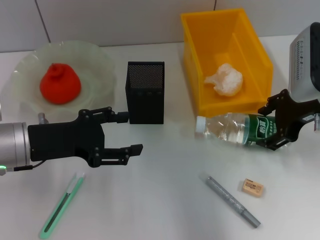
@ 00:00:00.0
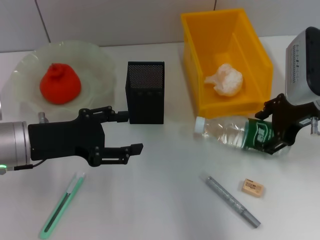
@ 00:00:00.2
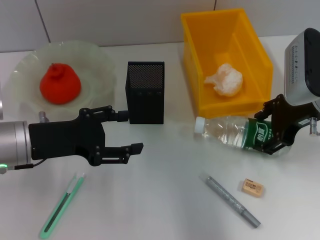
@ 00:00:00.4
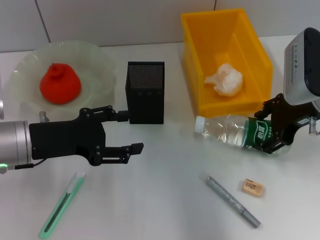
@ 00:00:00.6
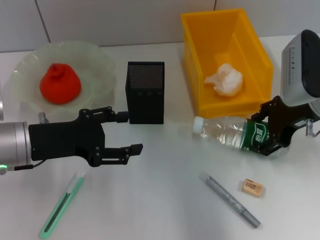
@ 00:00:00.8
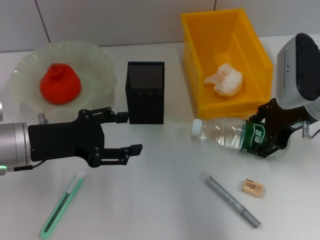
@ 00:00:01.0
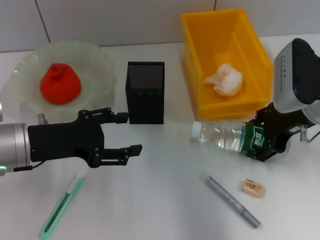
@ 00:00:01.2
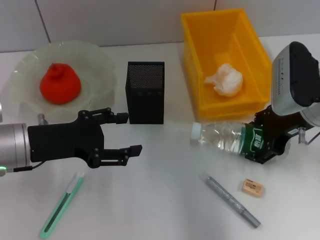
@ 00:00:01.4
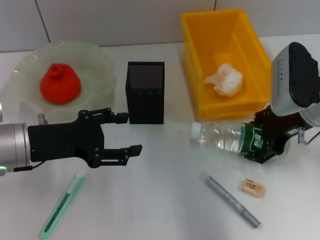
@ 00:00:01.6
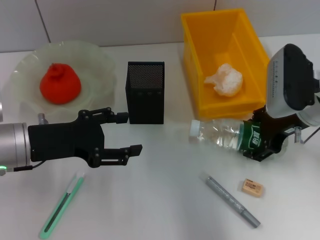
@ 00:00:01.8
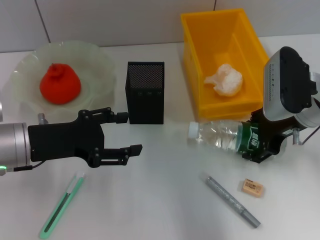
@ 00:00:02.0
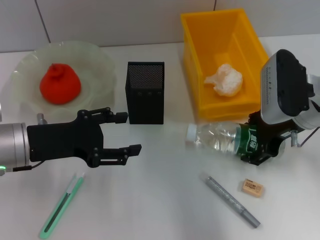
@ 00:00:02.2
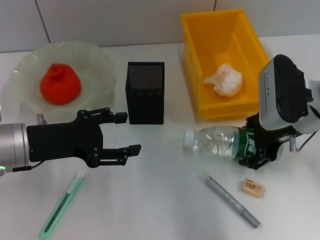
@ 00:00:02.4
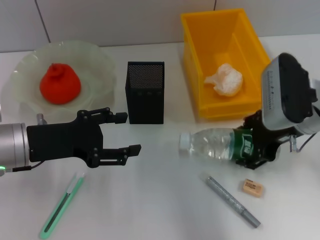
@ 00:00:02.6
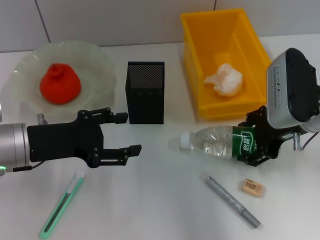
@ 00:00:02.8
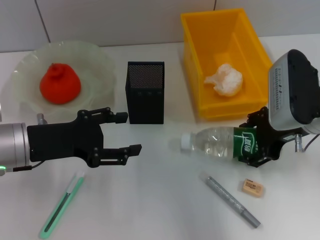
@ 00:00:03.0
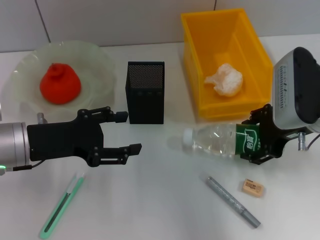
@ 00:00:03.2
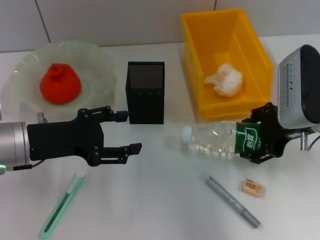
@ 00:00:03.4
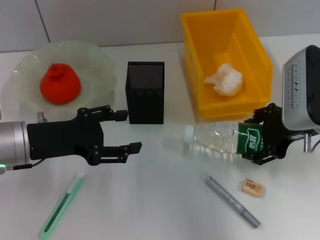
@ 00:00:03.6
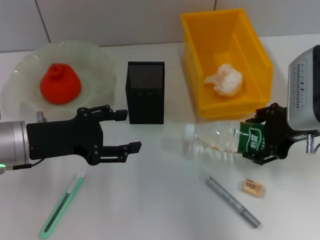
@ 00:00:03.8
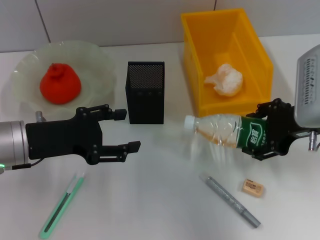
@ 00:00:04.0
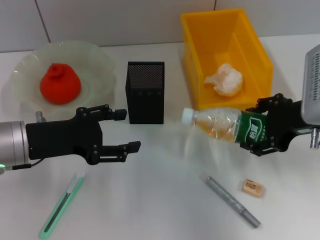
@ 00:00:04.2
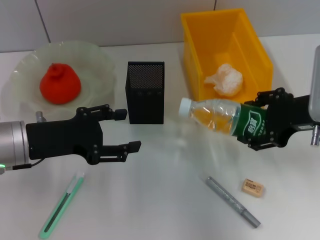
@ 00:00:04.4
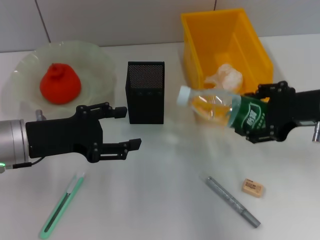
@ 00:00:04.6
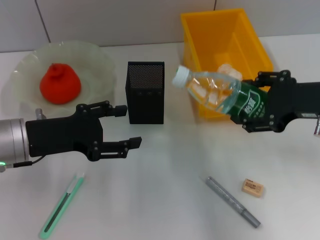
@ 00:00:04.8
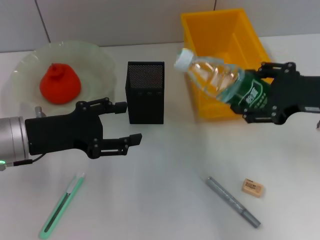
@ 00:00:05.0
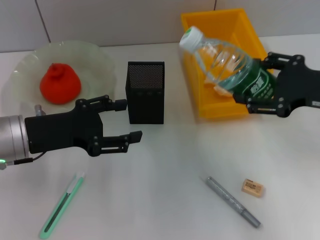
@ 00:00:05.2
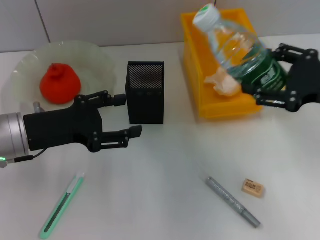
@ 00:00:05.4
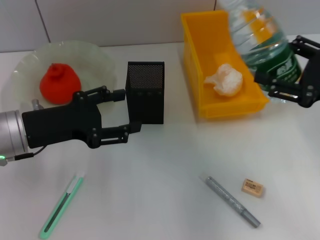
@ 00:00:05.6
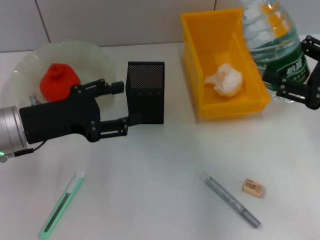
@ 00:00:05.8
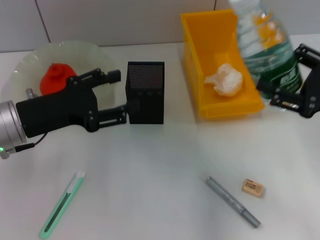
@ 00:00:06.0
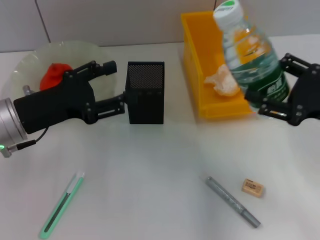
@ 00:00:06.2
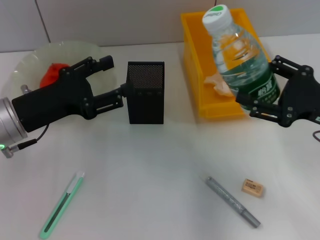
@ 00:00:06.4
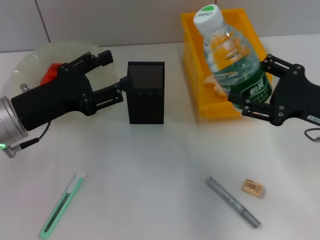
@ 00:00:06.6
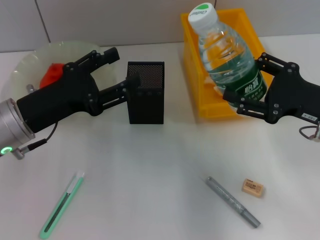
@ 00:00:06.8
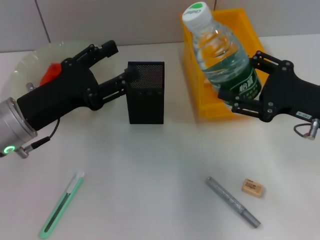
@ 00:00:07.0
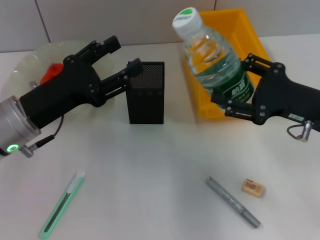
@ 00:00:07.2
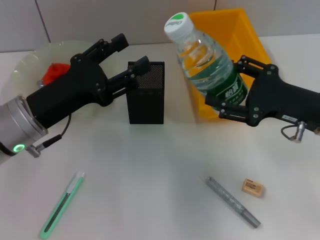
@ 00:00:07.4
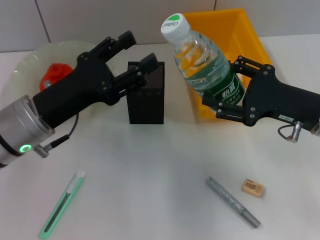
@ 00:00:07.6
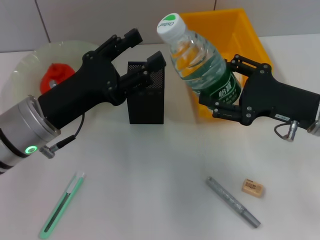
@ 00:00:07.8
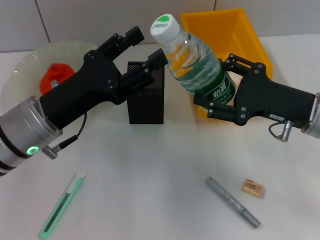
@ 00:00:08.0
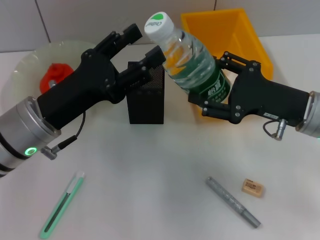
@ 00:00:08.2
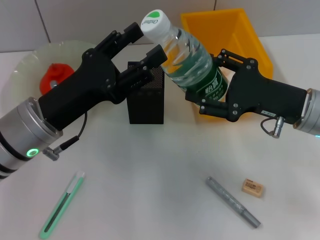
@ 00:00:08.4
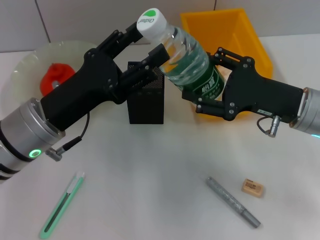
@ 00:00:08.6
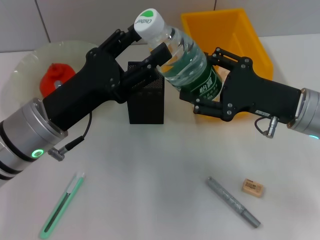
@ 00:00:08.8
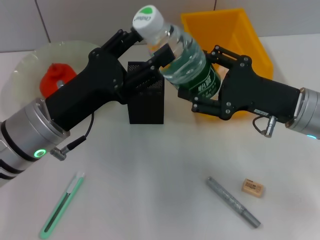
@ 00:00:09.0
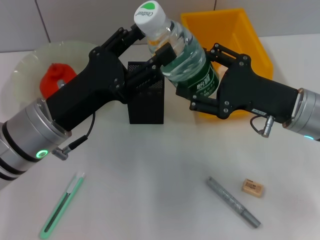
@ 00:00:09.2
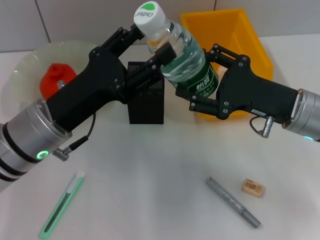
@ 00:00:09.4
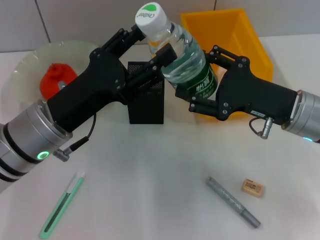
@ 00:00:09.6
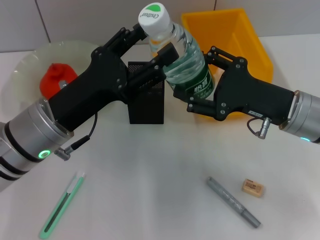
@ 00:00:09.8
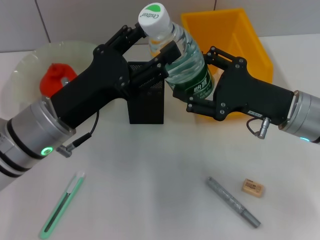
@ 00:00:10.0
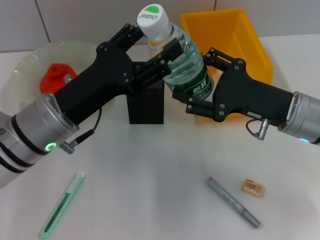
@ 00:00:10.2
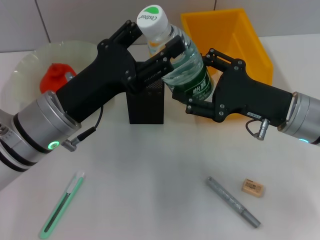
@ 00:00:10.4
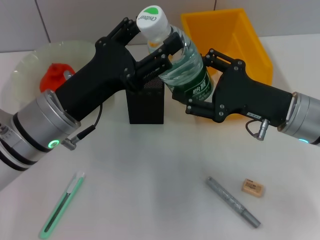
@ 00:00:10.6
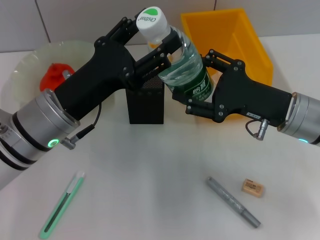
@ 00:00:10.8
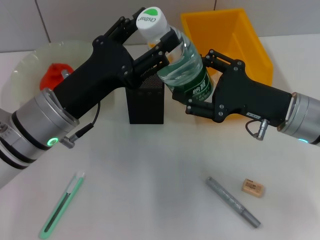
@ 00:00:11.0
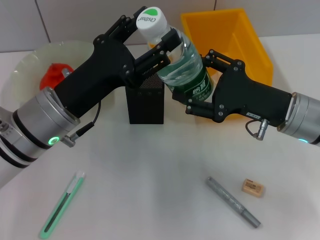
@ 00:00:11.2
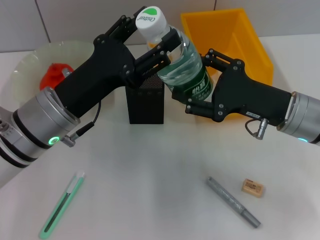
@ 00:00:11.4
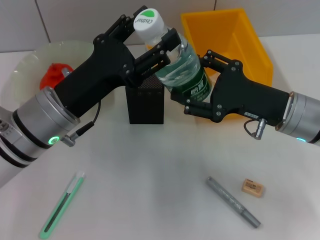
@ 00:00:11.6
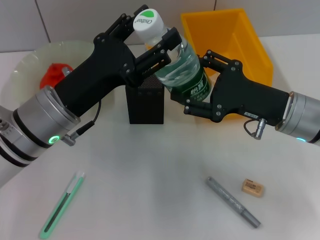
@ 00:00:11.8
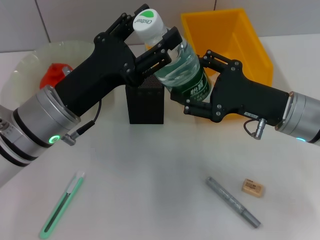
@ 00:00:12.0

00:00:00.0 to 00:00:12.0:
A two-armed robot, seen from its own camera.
00:00:00.0 to 00:00:04.4: The grippers move only a little.
00:00:04.4 to 00:00:06.0: The right gripper moves to the right, some 5 cm.
00:00:06.0 to 00:00:07.6: The right gripper travels to the left by roughly 5 cm.
00:00:07.6 to 00:00:10.4: There are only small adjustments of the grippers.
00:00:10.4 to 00:00:12.0: Neither gripper changes place.

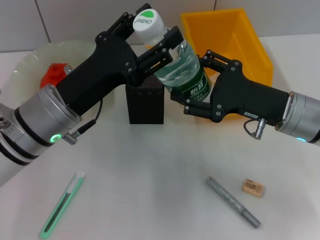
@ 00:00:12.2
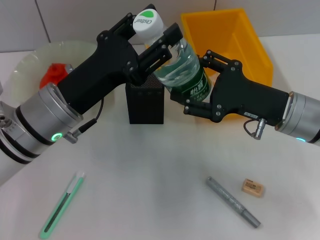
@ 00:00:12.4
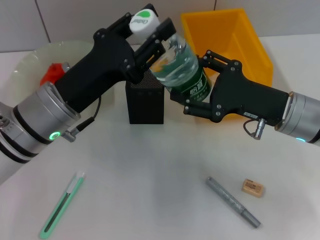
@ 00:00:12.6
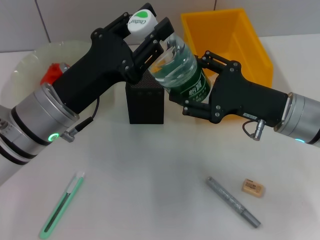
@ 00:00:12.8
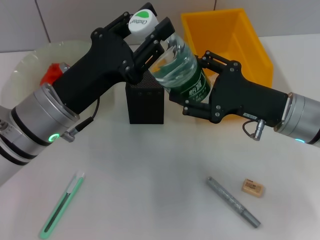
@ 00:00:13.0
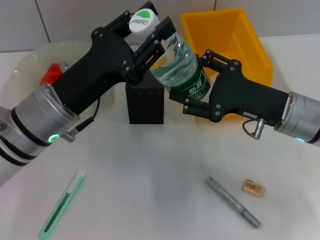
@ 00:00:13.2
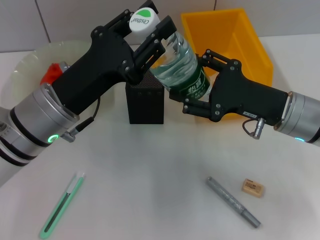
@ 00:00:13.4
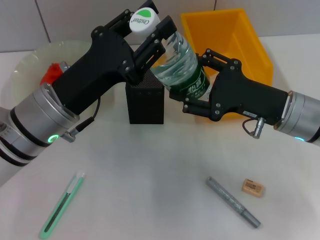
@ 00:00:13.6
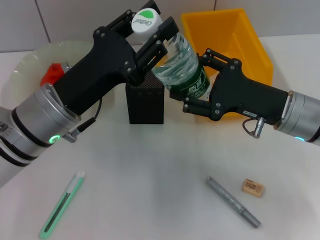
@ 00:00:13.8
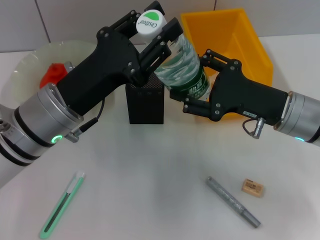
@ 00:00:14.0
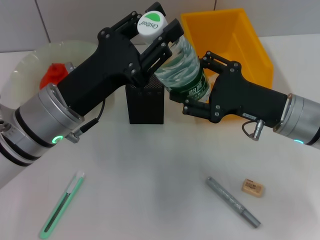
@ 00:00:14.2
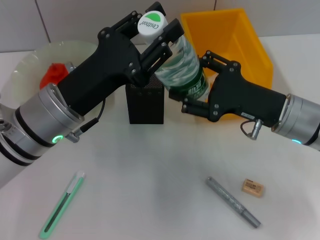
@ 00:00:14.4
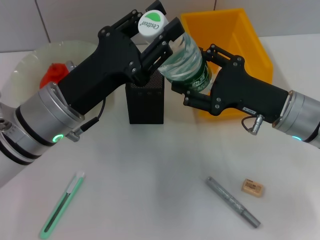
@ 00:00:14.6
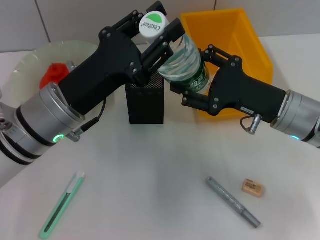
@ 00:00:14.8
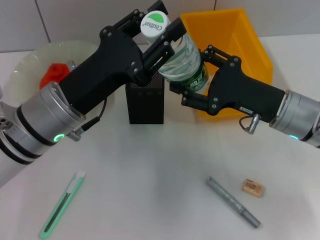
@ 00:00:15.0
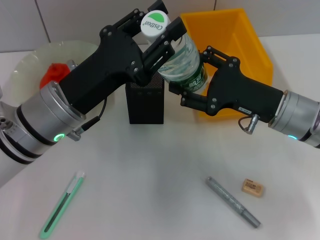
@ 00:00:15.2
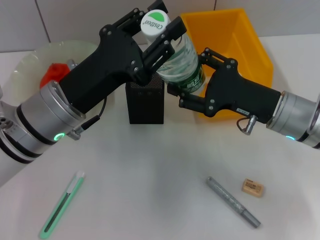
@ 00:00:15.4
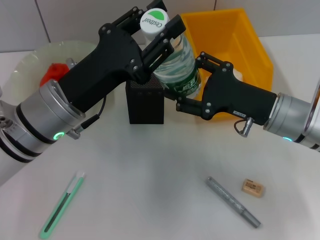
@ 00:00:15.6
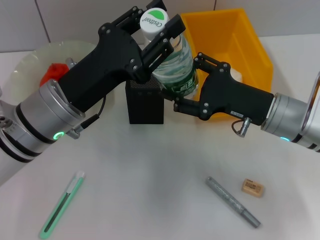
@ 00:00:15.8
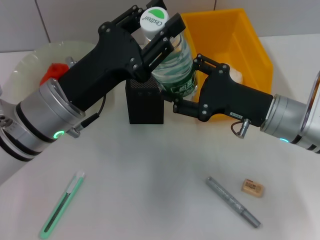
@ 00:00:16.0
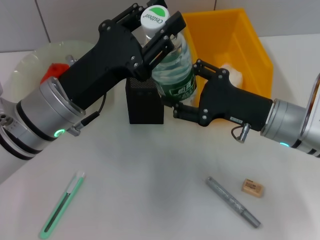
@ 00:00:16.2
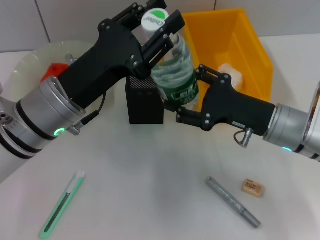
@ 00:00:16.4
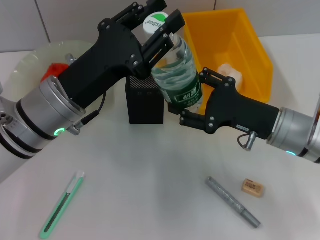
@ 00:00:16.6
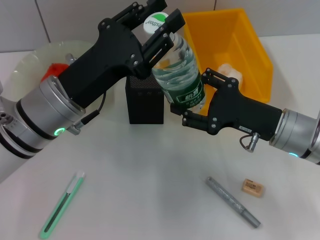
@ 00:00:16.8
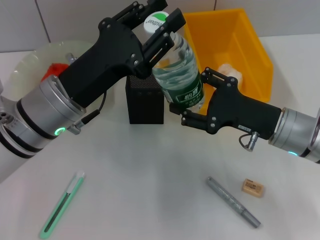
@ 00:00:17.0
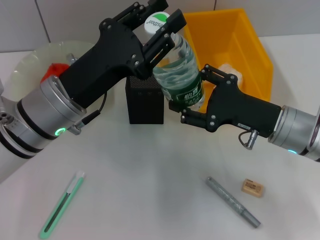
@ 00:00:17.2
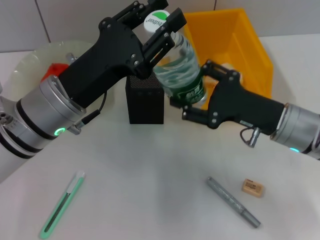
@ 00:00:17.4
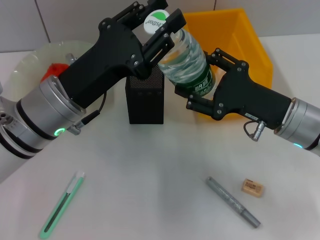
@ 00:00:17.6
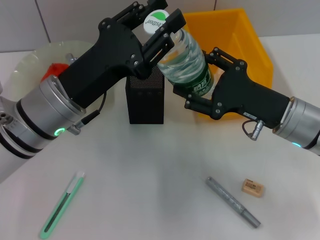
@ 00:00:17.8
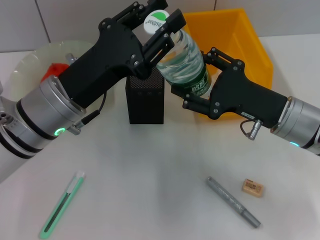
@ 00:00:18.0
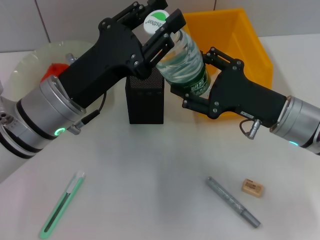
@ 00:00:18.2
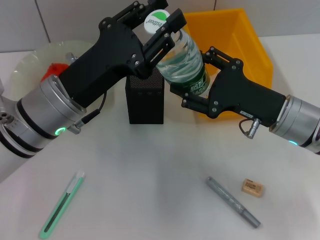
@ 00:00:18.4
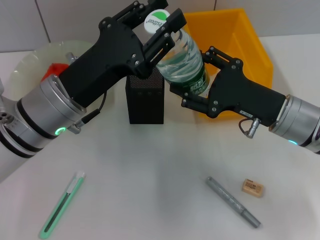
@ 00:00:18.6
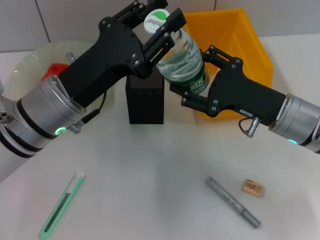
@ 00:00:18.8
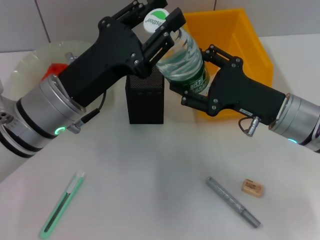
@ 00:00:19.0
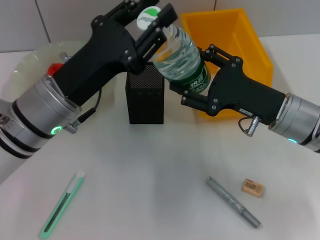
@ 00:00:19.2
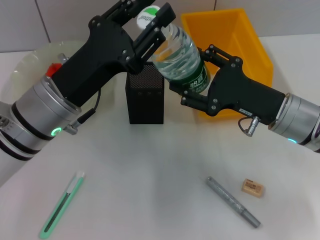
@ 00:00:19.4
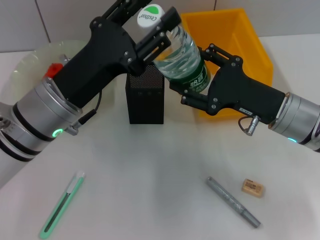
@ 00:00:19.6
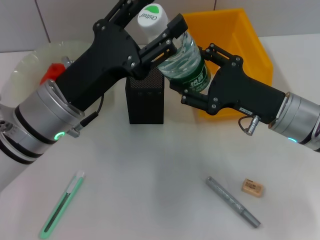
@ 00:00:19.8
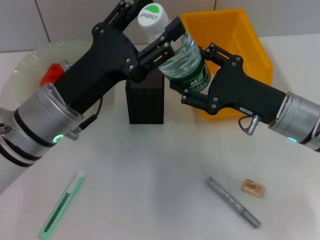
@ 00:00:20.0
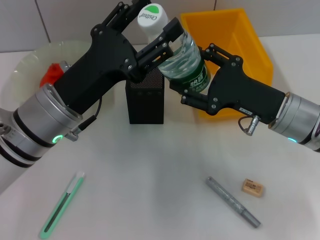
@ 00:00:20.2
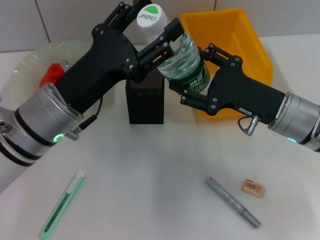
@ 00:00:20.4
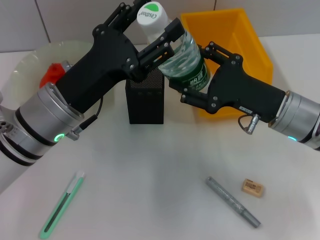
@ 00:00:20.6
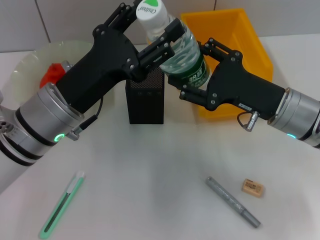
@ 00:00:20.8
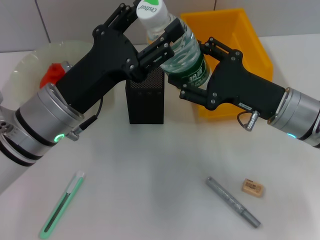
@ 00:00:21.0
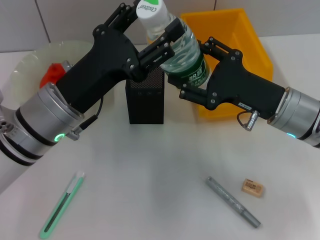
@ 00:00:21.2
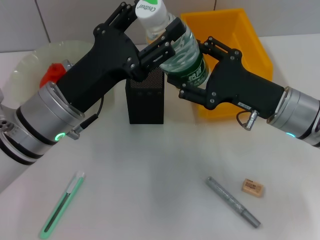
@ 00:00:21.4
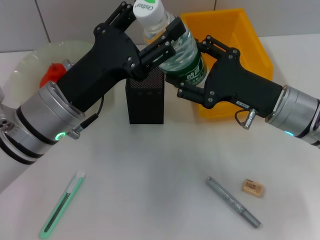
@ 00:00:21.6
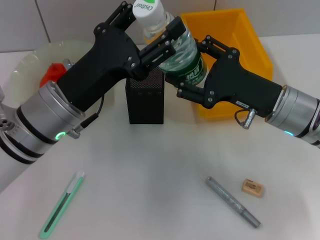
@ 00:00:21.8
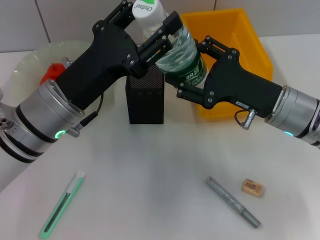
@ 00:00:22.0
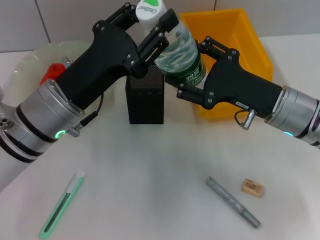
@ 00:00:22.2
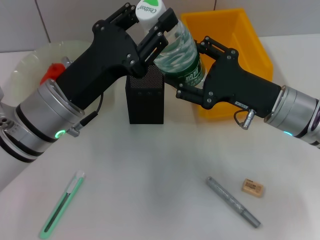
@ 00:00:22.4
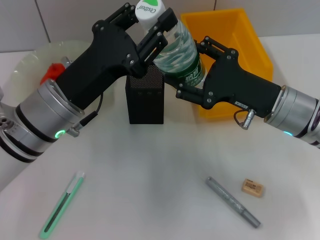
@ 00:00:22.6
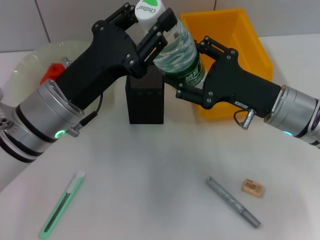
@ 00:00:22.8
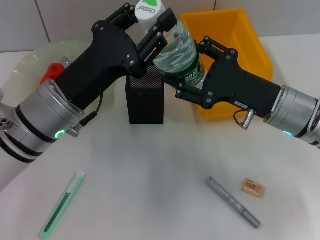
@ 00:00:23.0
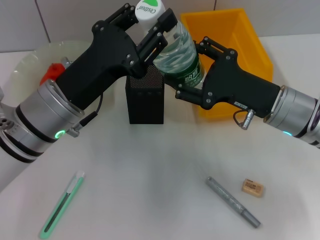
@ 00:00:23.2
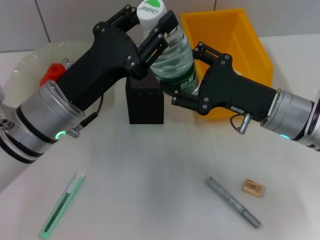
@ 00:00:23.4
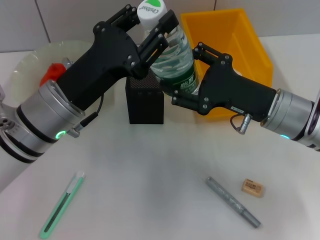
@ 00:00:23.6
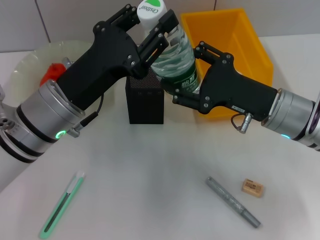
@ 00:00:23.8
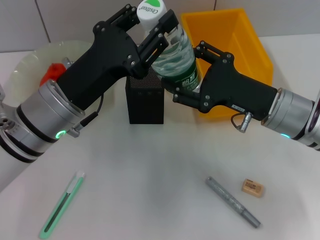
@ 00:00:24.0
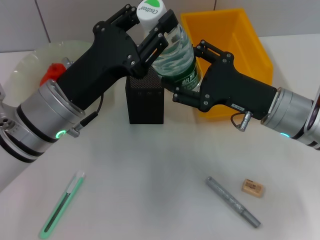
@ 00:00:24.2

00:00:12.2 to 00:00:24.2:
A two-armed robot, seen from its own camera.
00:00:12.2 to 00:00:13.8: The left gripper closes.
00:00:13.8 to 00:00:15.2: Both grippers stay about where they are.
00:00:15.2 to 00:00:18.2: The grippers move only a little.
00:00:18.2 to 00:00:21.2: Both grippers stay put.
00:00:21.2 to 00:00:22.6: The left gripper closes up.
00:00:22.6 to 00:00:24.2: Both grippers stay put.
